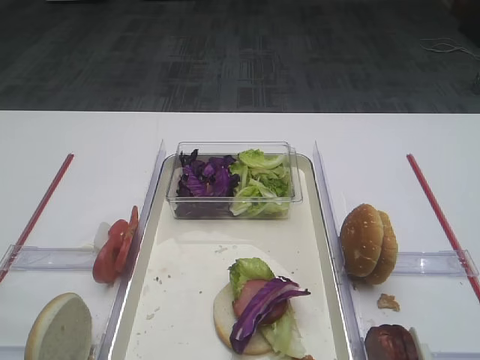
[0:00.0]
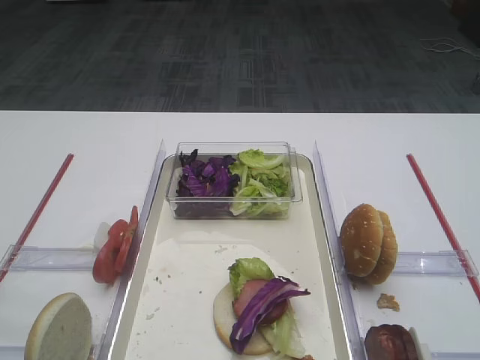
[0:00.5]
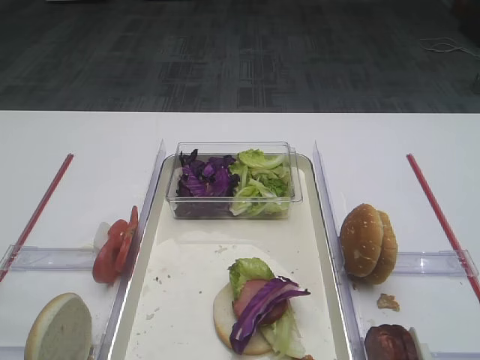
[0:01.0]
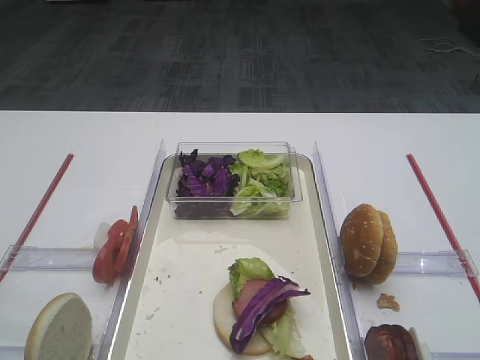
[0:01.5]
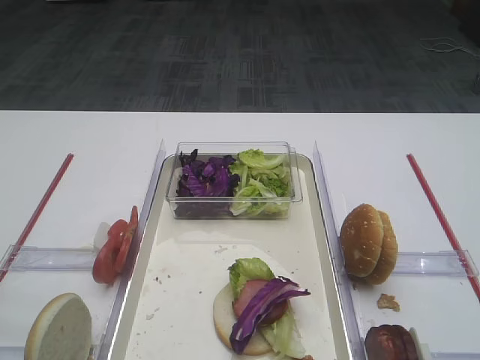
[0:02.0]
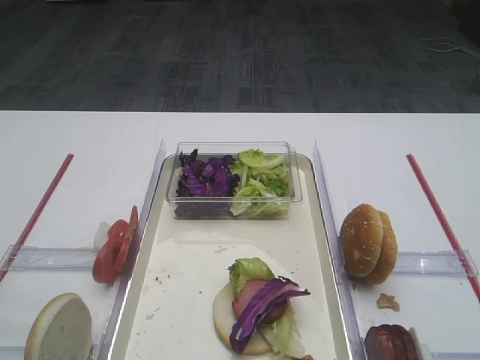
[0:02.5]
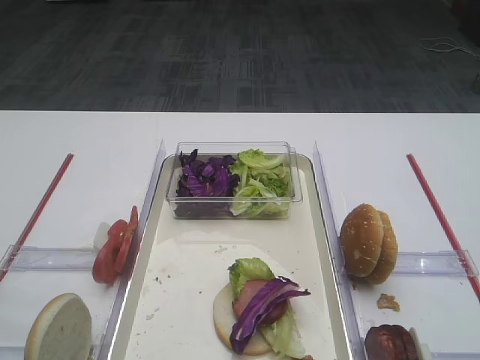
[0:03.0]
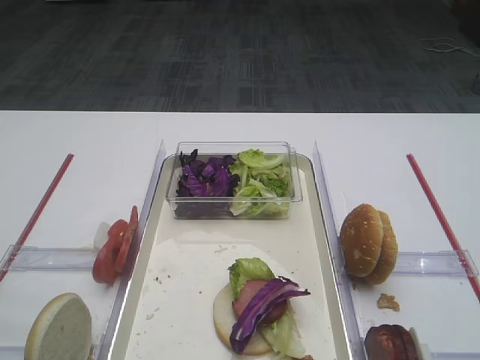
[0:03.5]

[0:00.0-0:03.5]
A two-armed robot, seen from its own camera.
0:00.0 to 0:02.0: Both grippers stay about where they are.

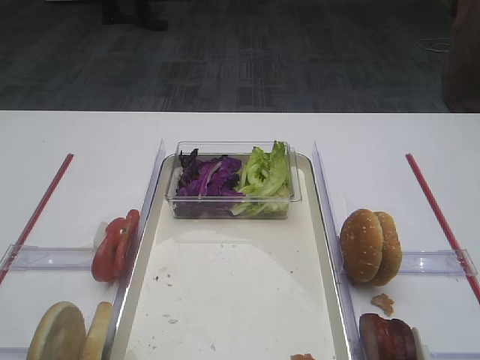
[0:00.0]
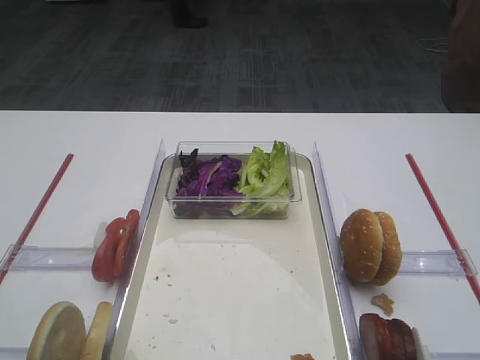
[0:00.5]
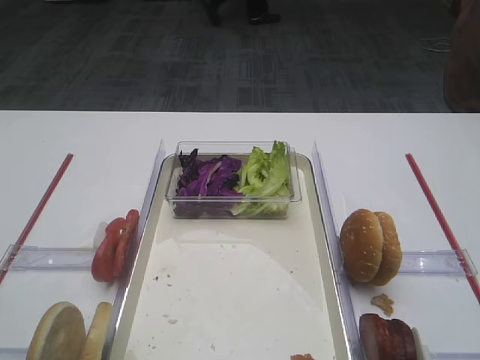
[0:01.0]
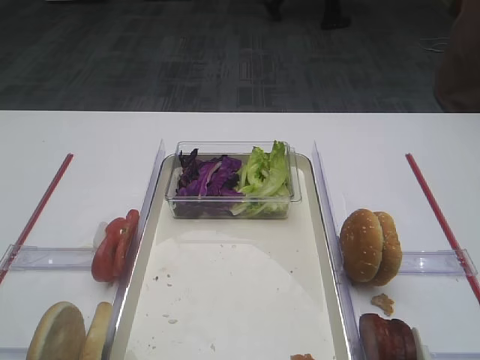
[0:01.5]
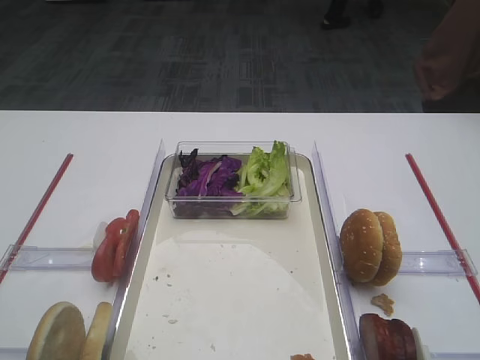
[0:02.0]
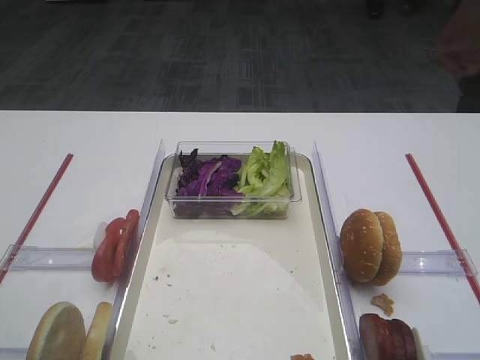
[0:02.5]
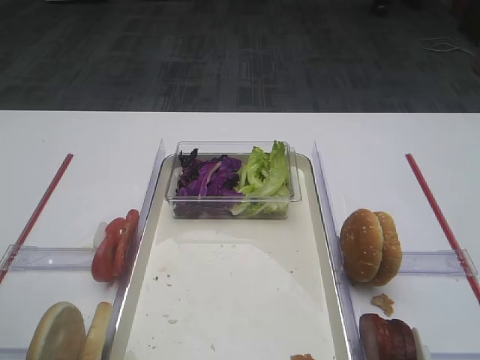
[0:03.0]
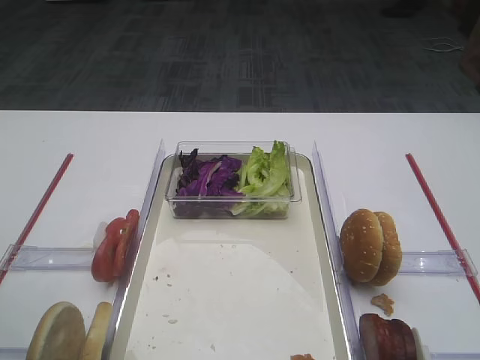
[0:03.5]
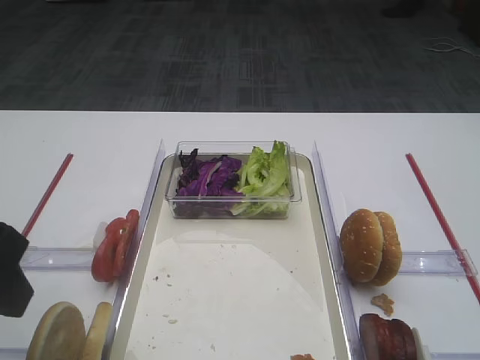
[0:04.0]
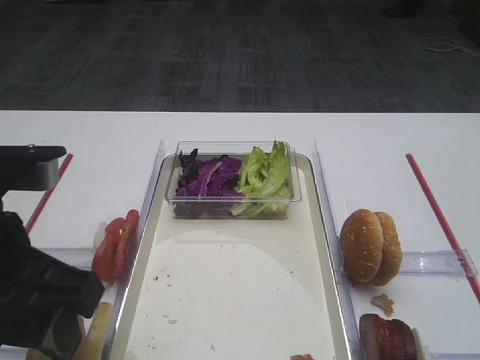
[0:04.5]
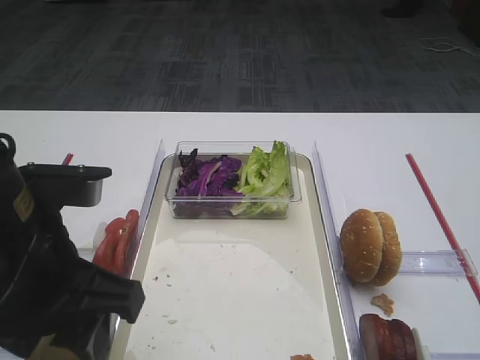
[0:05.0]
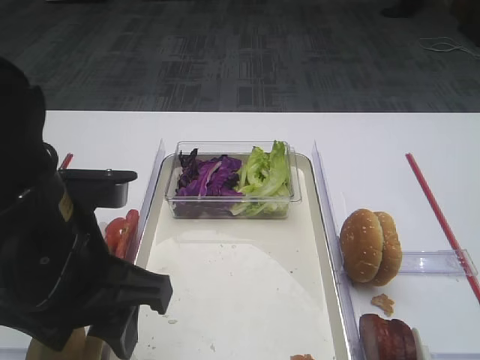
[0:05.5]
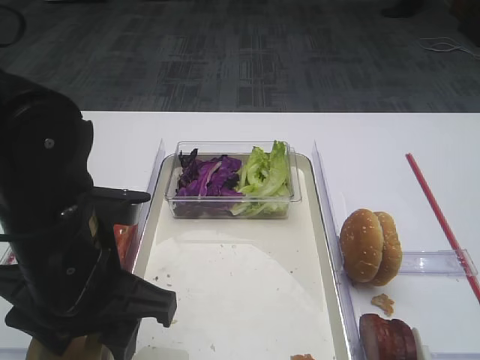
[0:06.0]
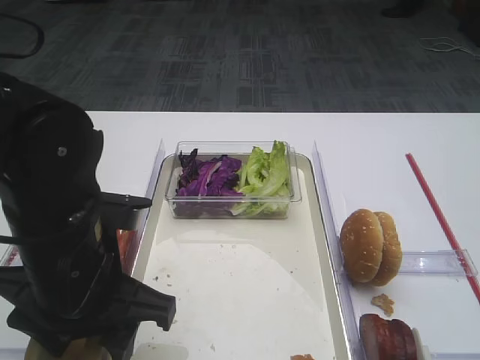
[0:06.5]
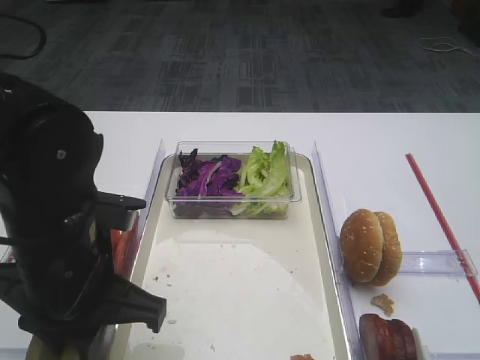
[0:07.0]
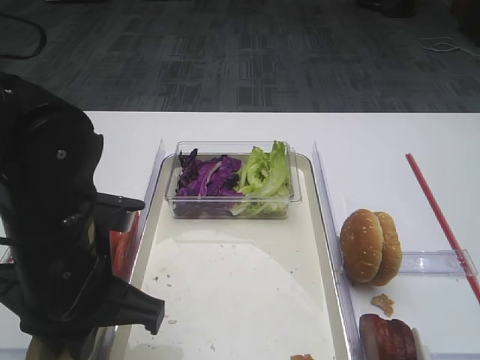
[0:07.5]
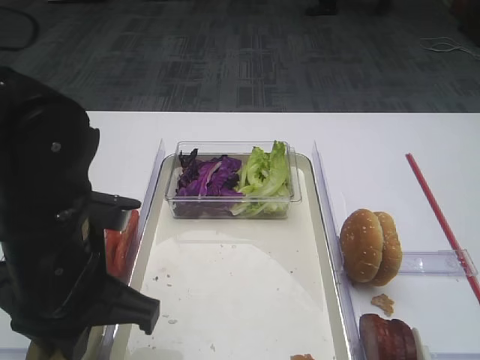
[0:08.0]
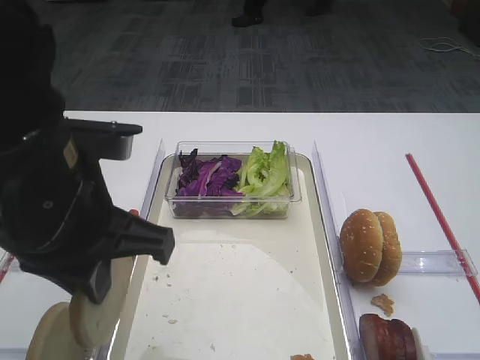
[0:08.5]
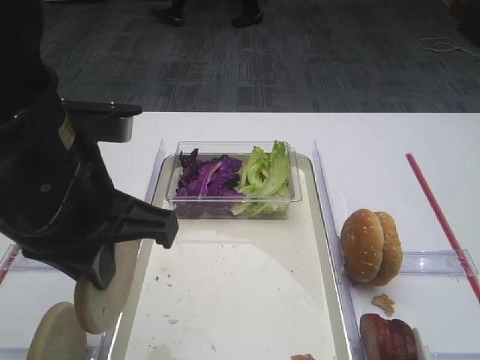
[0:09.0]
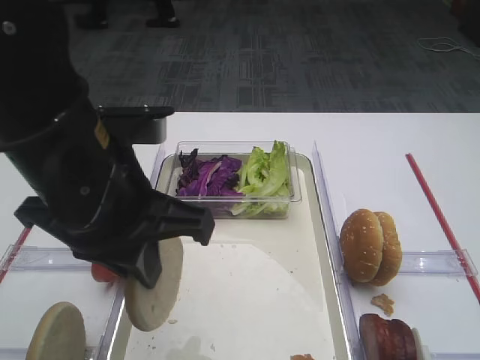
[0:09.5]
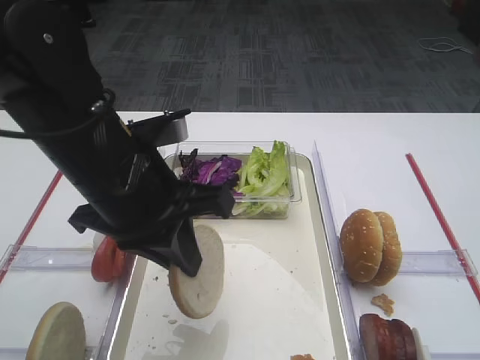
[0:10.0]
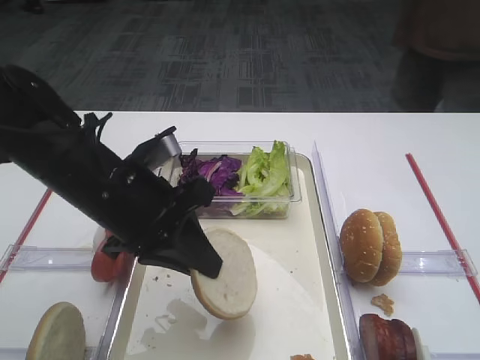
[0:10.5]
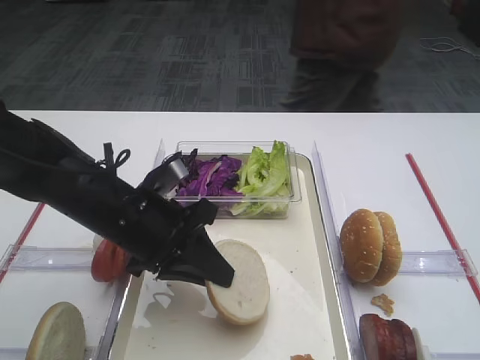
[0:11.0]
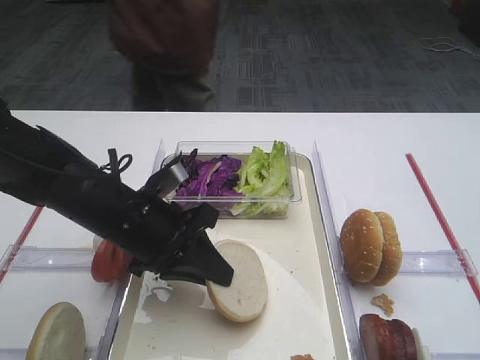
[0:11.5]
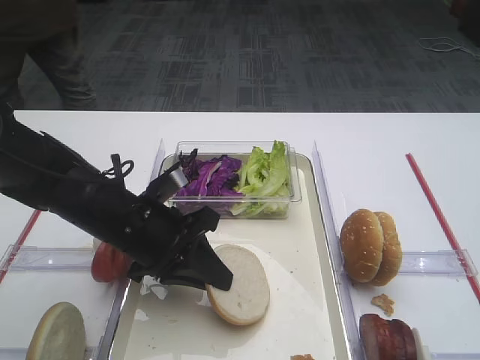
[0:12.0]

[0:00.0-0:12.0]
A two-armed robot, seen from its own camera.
Step, 0:00.0 to 0:09.0: Pick up the bread slice with the left gripper.
0:02.0 to 0:04.0: The left gripper shifts roughly 10 cm forward and to the right.
0:04.0 to 0:06.0: The left gripper goes some 10 cm to the right and downward.
0:06.0 to 0:08.0: The left gripper closes.
0:08.0 to 0:10.0: The left gripper shifts by roughly 5 cm.
0:10.0 to 0:12.0: The left gripper is displaced downward by about 10 cm.

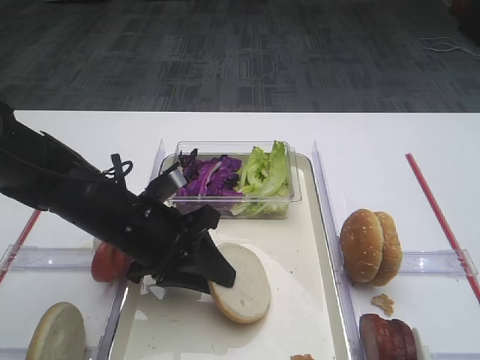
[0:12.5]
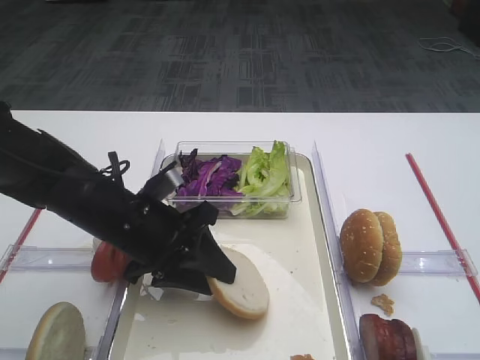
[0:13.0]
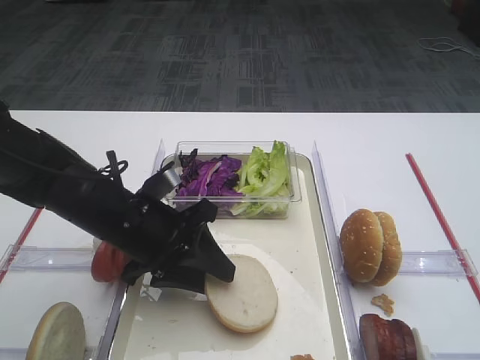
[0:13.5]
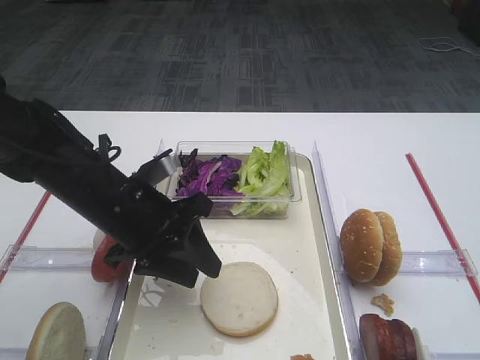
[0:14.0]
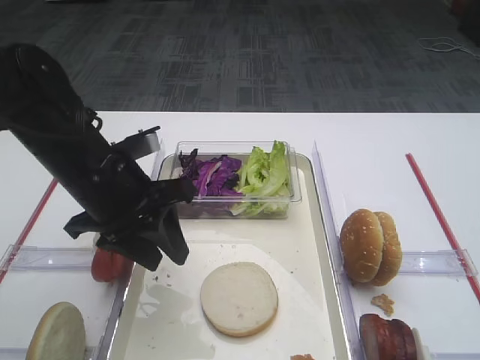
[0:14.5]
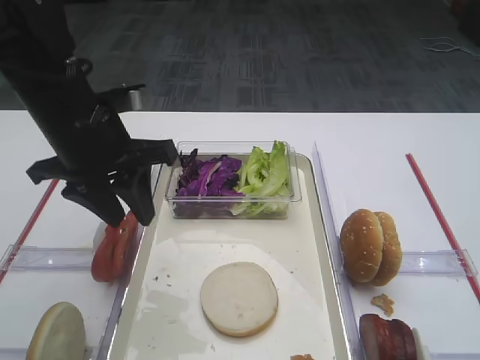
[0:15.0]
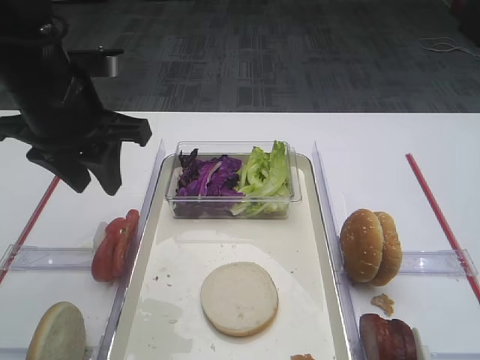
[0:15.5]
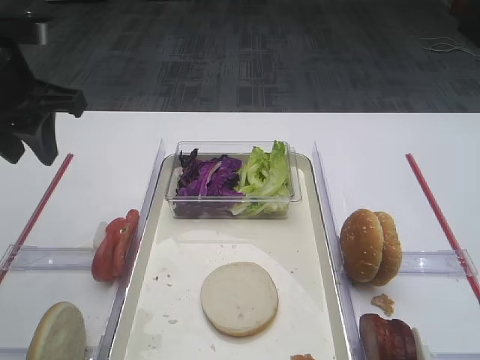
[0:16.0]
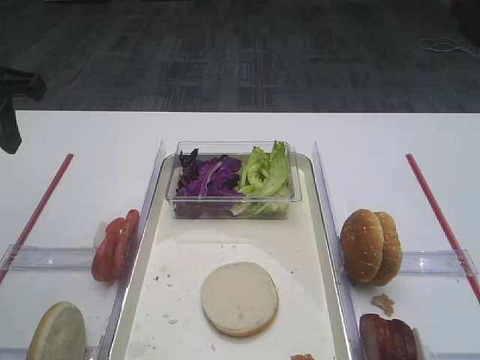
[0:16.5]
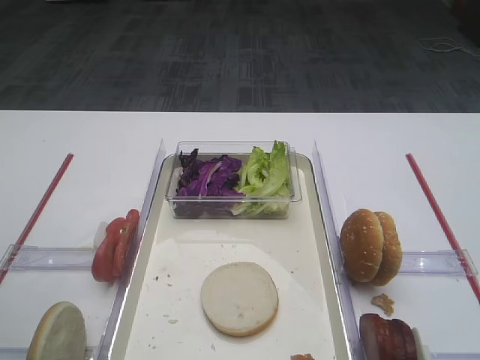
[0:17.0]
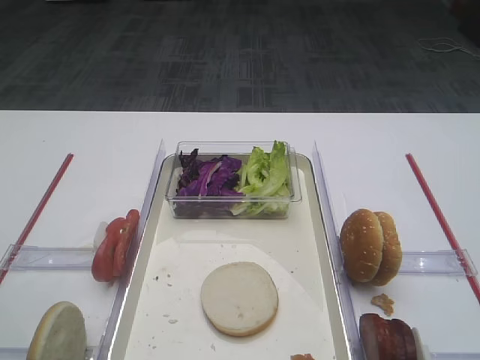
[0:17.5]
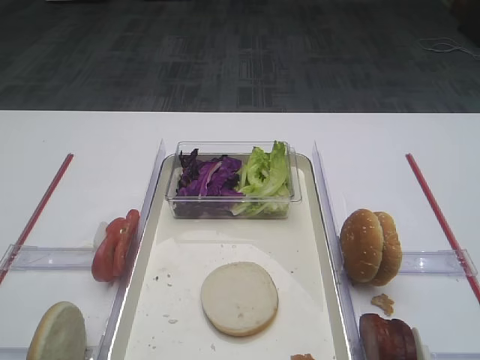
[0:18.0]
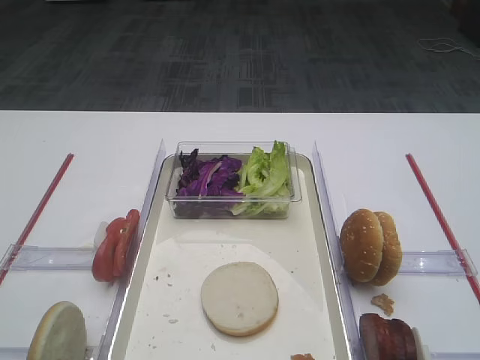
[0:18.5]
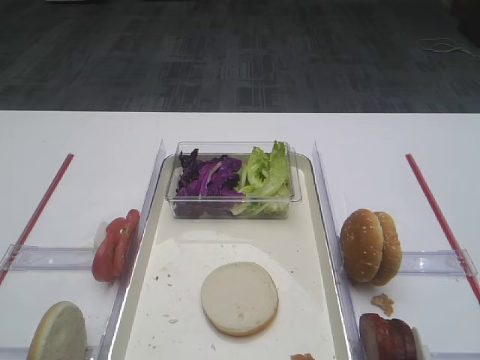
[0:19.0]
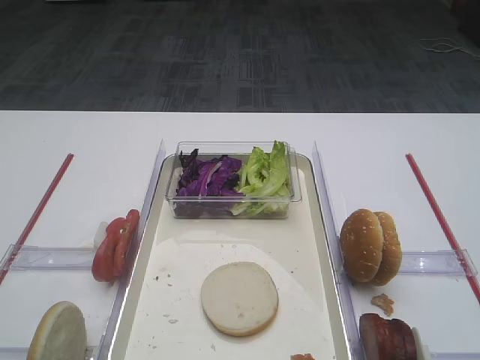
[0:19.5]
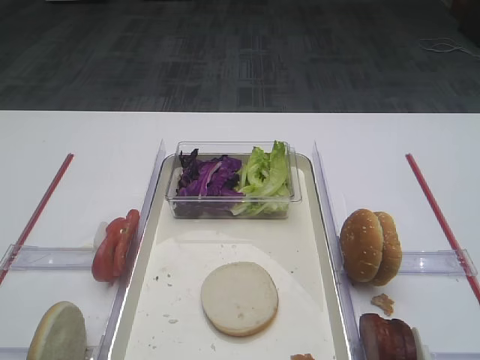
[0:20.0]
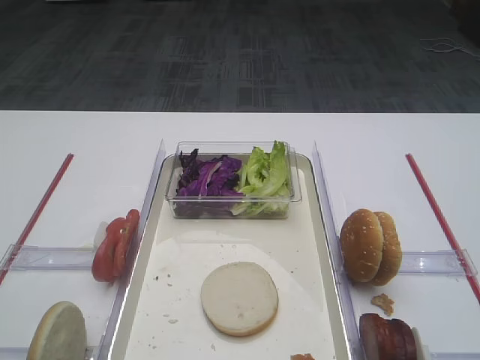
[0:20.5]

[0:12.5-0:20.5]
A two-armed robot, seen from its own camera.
Step, 0:12.5 to 0:14.5: Place the bread slice on the tray with the left gripper.
0:12.5 to 0:14.5: The left gripper heads upward, covering roughly 5 cm.
0:14.5 to 0:16.5: The left gripper is displaced upward and to the left by some 20 cm.
0:16.5 to 0:18.5: The left gripper moves backward, roughly 30 cm.

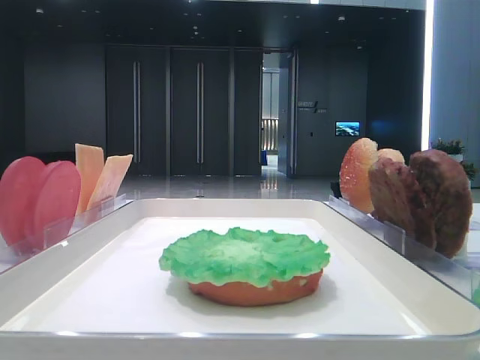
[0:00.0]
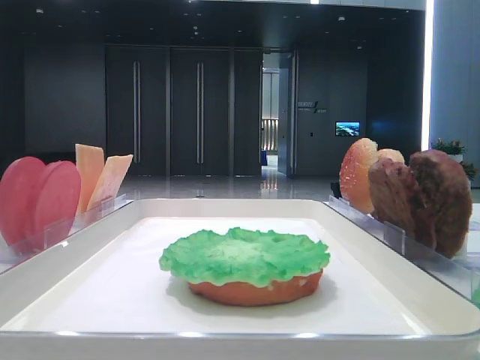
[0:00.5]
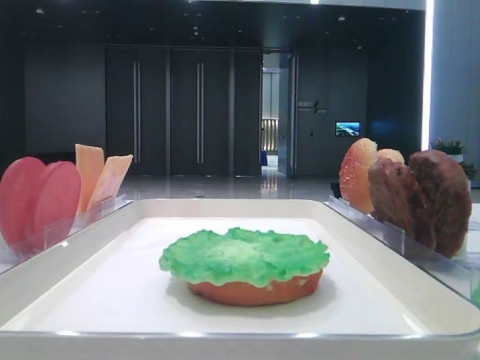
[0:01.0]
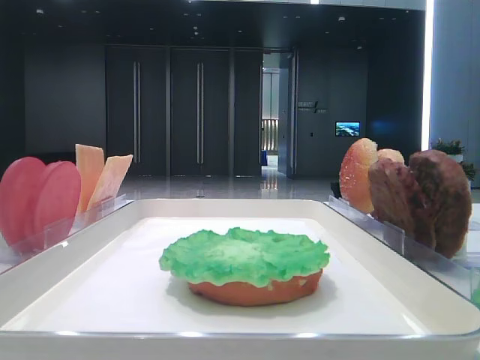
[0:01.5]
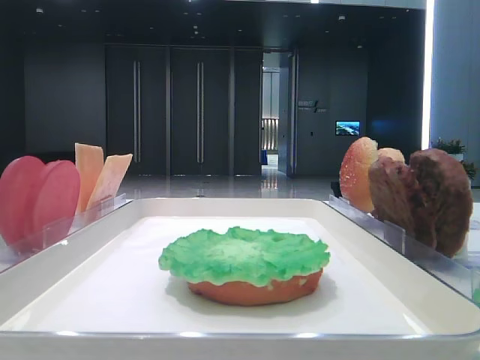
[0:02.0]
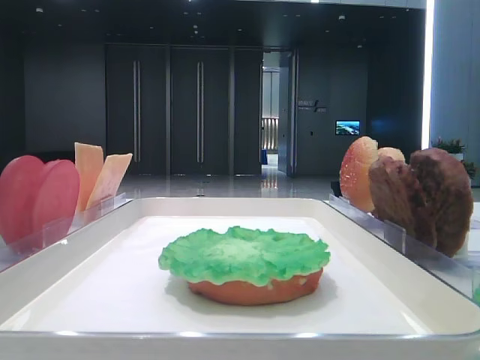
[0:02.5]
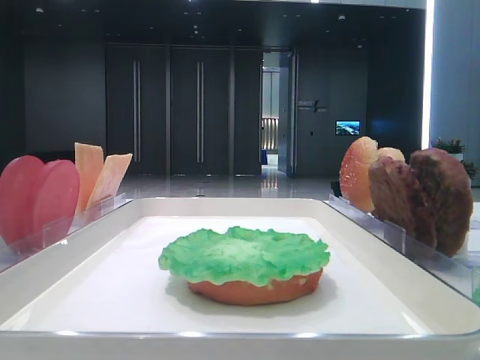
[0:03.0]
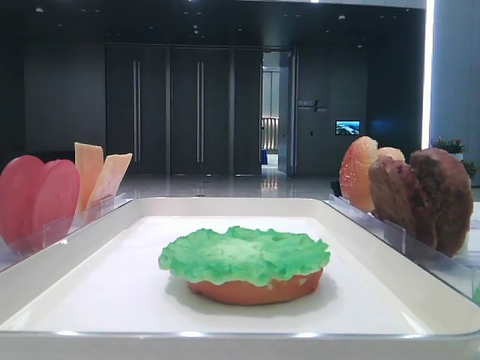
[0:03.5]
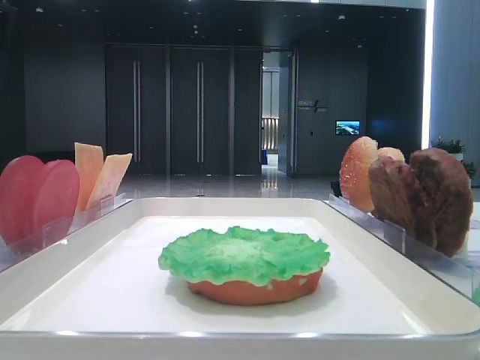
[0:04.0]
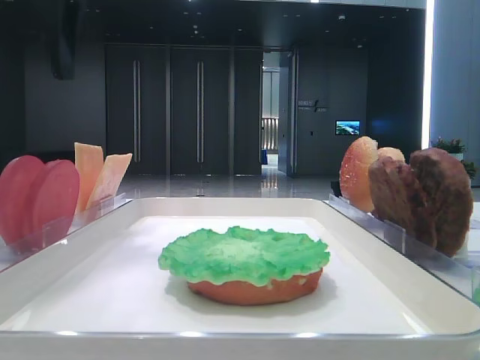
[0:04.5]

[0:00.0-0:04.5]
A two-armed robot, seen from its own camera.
0:02.0 to 0:04.5: The left gripper moves forward, to the right and downward, approximately 20 cm.
